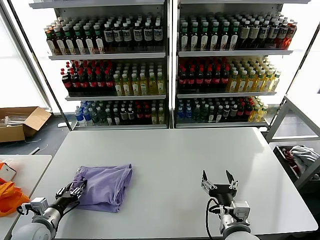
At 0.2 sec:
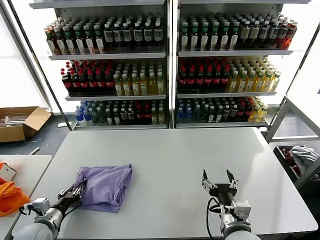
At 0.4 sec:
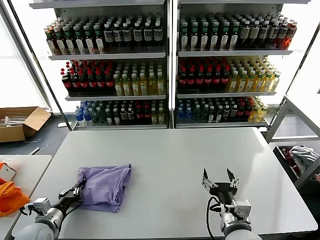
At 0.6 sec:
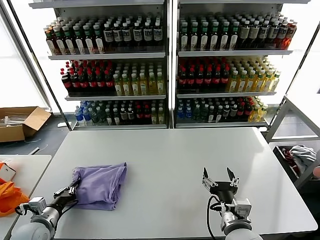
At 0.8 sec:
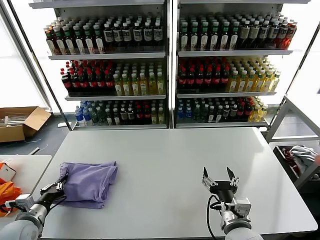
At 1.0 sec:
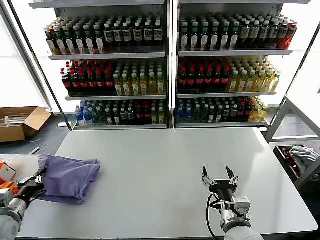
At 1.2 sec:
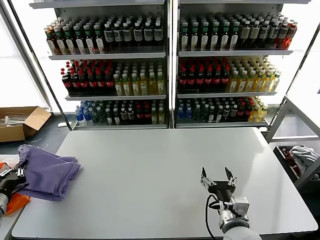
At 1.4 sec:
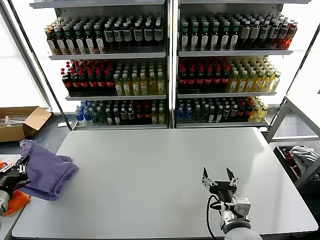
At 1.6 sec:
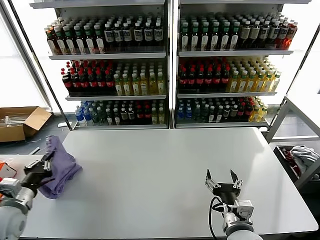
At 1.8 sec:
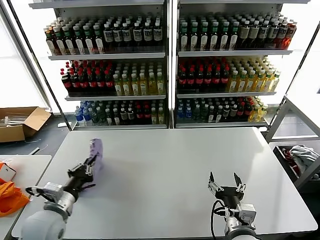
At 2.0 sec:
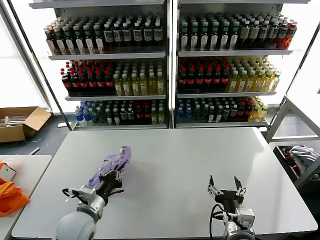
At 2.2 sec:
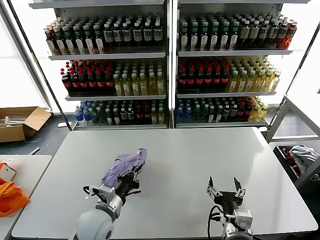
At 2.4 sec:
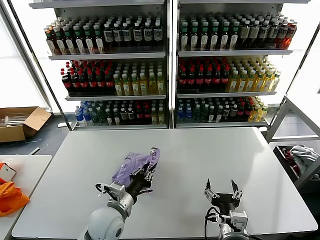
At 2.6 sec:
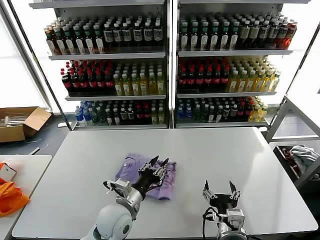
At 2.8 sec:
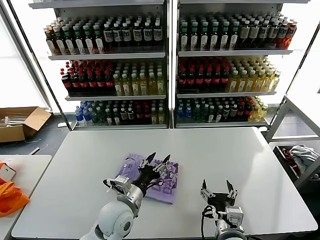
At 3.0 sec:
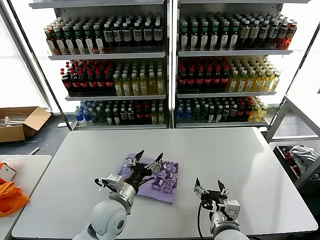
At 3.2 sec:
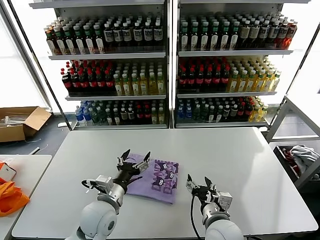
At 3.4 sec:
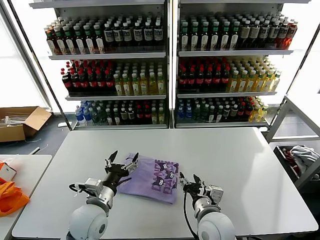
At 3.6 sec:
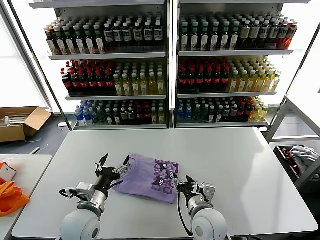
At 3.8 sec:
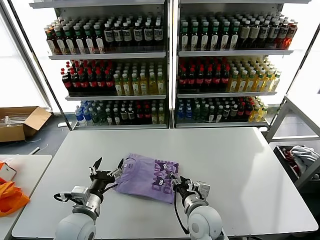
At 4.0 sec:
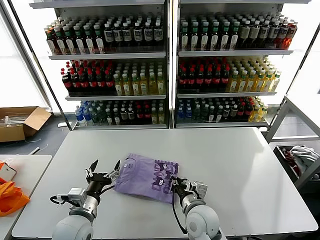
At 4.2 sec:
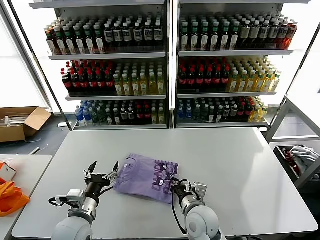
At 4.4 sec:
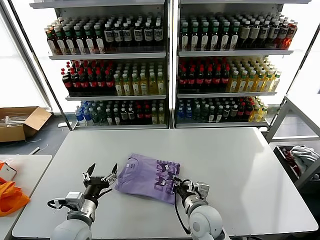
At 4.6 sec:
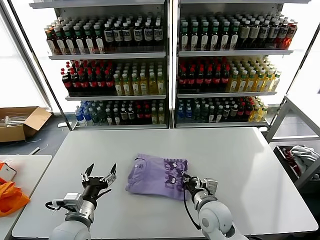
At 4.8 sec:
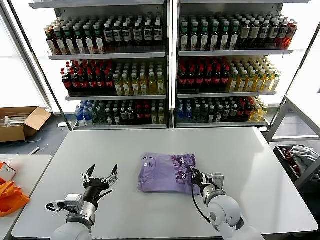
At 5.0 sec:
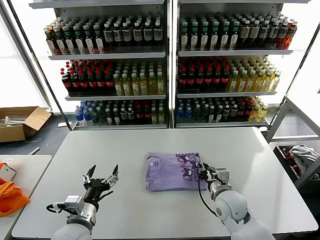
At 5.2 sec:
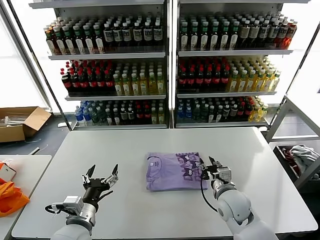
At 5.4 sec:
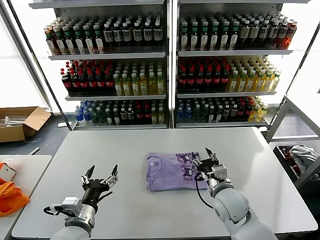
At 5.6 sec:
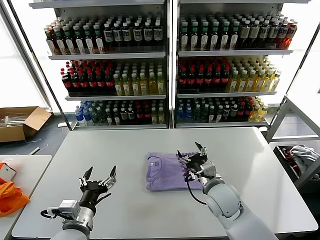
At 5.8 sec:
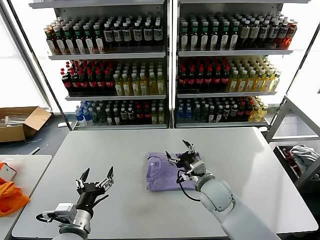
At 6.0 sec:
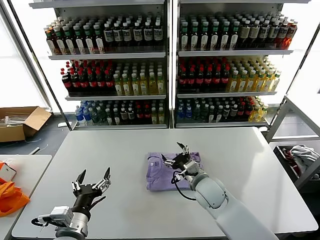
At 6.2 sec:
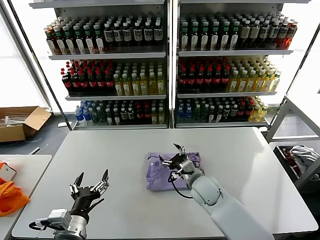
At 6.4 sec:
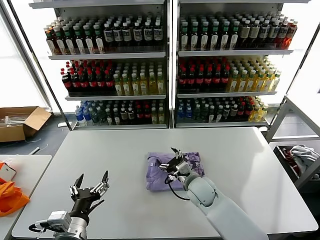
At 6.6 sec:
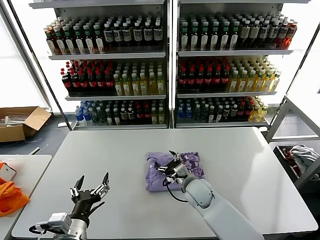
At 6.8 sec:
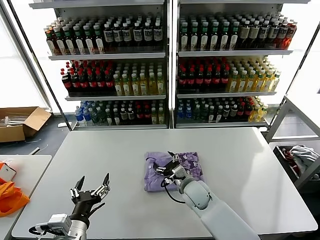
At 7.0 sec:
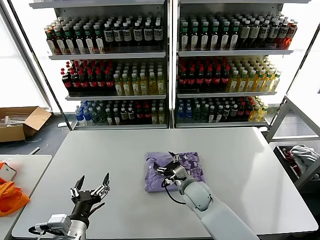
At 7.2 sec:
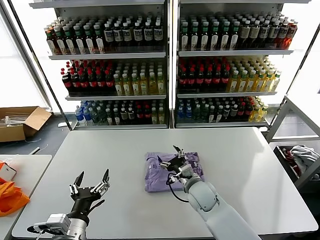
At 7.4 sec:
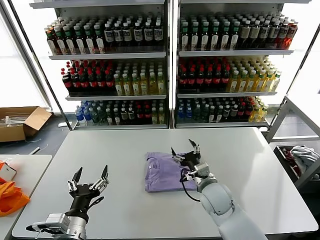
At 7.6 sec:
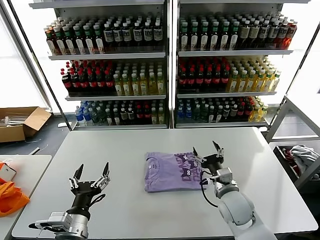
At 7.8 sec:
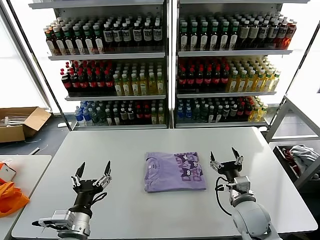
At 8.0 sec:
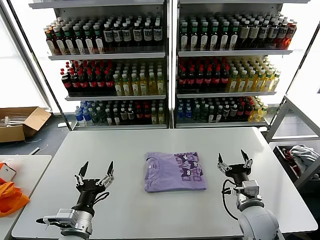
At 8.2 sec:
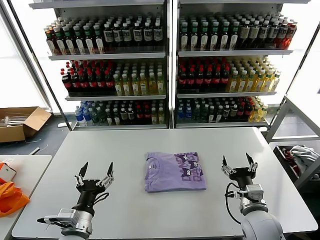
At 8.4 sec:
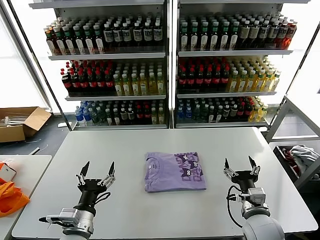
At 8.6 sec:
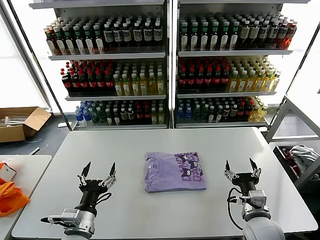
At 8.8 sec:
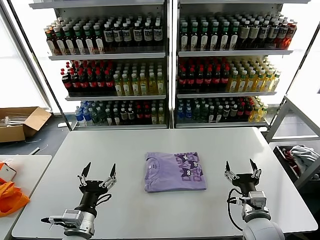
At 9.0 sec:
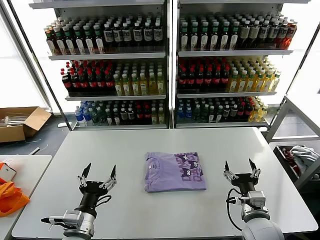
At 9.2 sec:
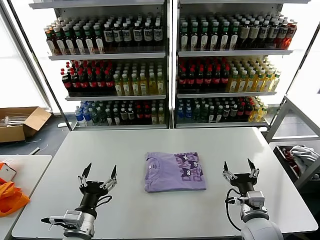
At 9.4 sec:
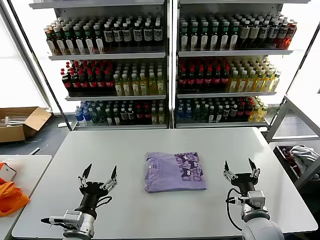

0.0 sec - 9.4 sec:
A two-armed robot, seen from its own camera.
Task of the whole recording: fold and organize the clothes.
Step, 0.0 sec - 2.6 sec: Flip the folded clothes over with left gripper.
Step, 2.8 sec - 7.2 sec: Drag the clothes to the center of the table.
0.0 sec - 1.6 sec: The left gripper goes some 10 cm upward, and closes.
1.6 sec - 3.2 sec: The right gripper ends up about 5 cm from where it was; the left gripper is displaced to the right by about 25 cm, and opens up.
3.2 sec - 4.8 sec: The right gripper moves forward, approximately 10 cm, and closes. Meanwhile the left gripper moves to the left and backward, roughly 10 cm.
4.8 sec - 6.2 sec: The left gripper moves some 5 cm, while the right gripper is displaced forward by roughly 5 cm, and opens its fingers.
6.2 sec - 7.8 sec: The right gripper moves to the right and backward, roughly 15 cm.
7.8 sec - 9.4 sec: The right gripper travels backward by approximately 5 cm.
